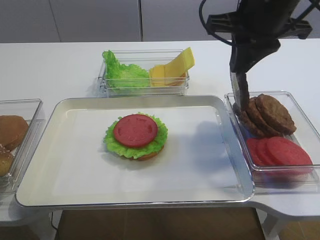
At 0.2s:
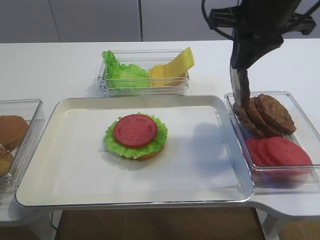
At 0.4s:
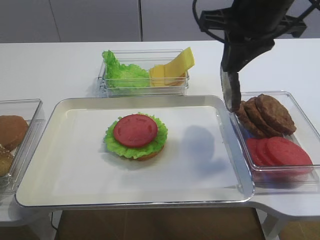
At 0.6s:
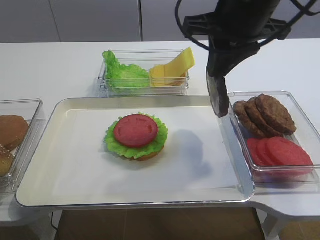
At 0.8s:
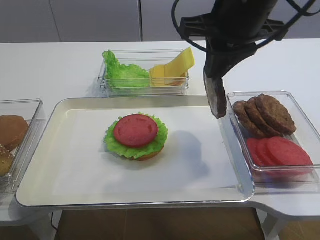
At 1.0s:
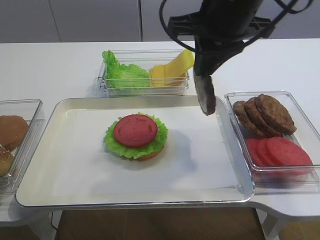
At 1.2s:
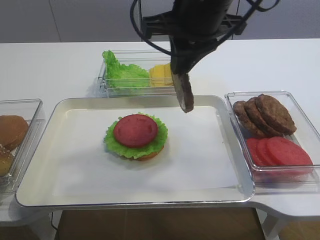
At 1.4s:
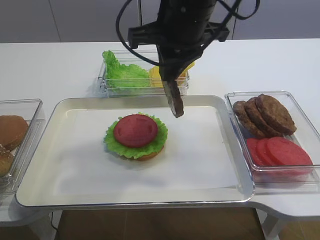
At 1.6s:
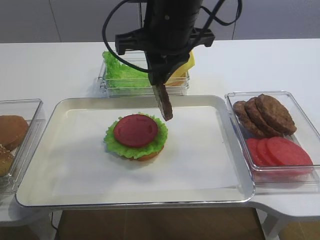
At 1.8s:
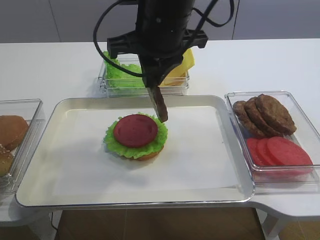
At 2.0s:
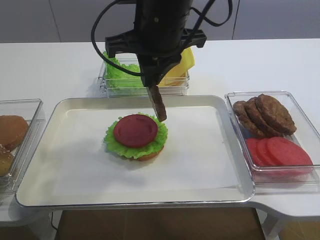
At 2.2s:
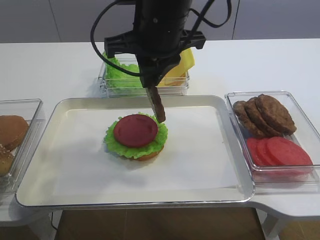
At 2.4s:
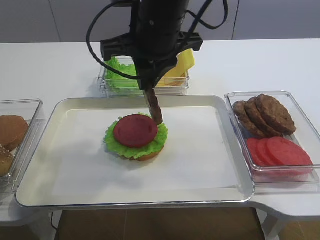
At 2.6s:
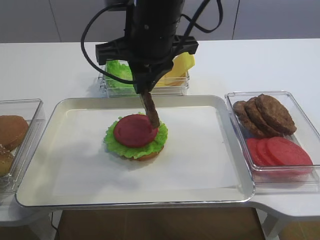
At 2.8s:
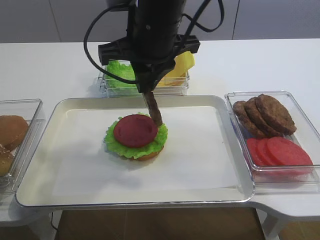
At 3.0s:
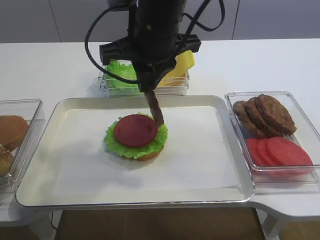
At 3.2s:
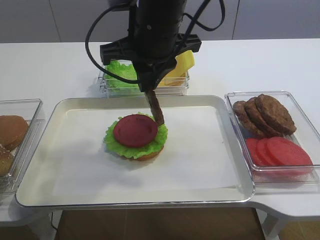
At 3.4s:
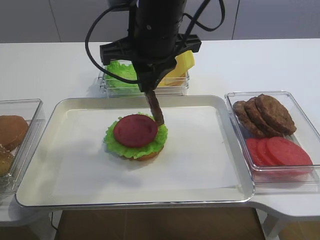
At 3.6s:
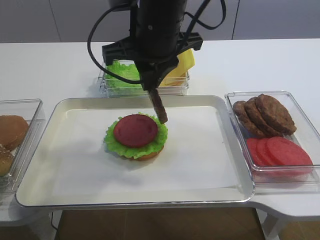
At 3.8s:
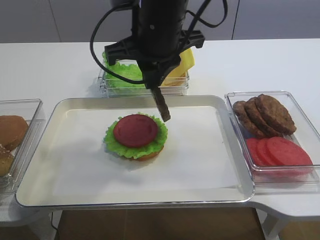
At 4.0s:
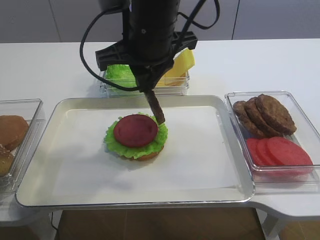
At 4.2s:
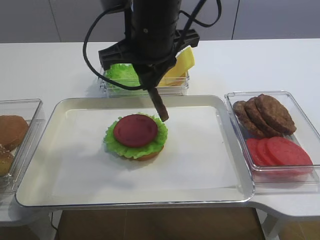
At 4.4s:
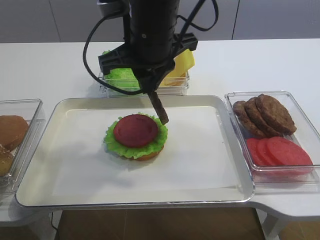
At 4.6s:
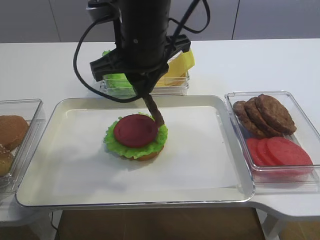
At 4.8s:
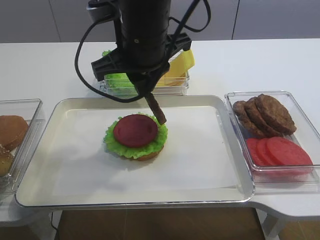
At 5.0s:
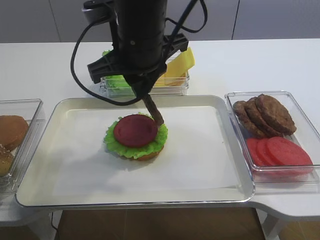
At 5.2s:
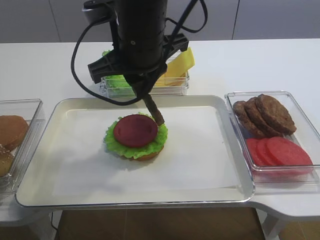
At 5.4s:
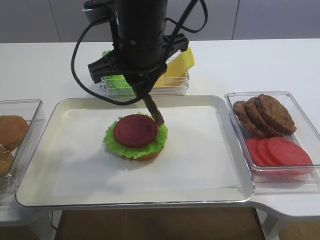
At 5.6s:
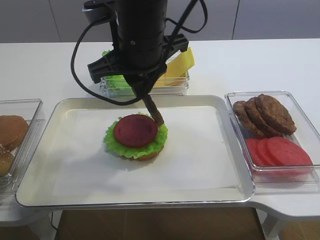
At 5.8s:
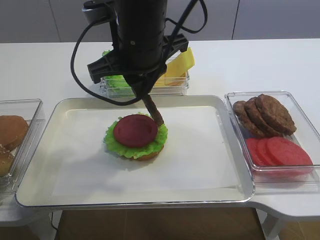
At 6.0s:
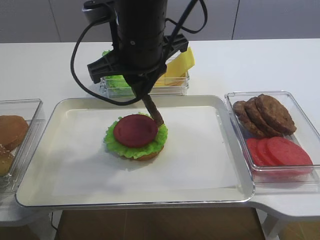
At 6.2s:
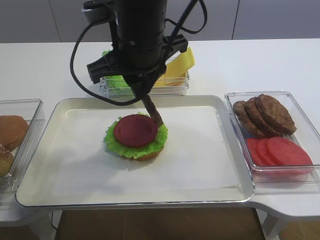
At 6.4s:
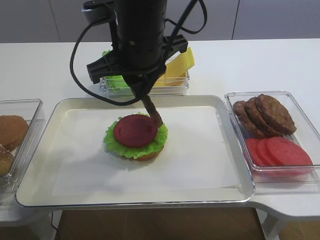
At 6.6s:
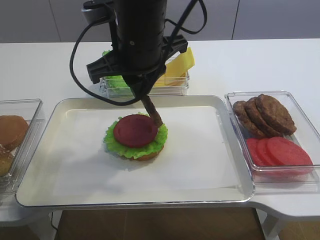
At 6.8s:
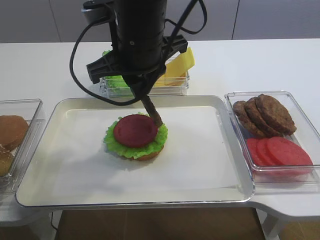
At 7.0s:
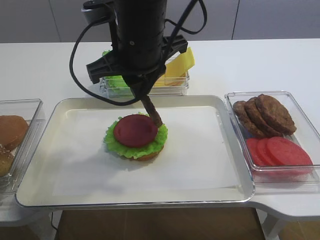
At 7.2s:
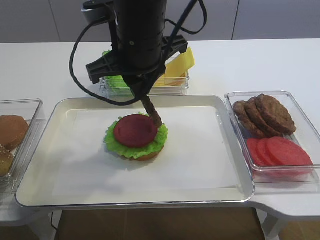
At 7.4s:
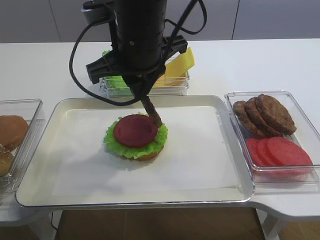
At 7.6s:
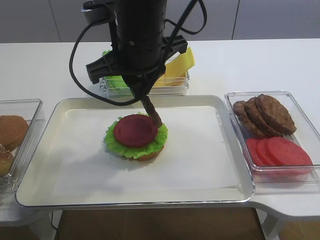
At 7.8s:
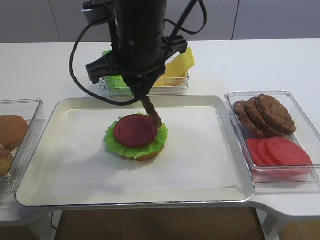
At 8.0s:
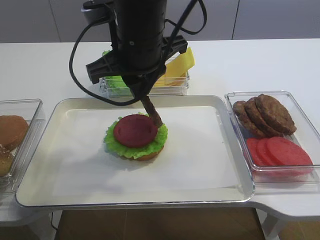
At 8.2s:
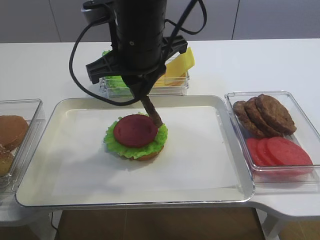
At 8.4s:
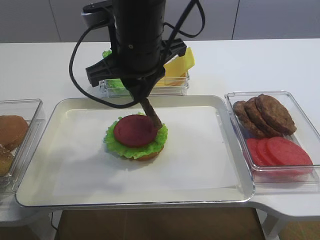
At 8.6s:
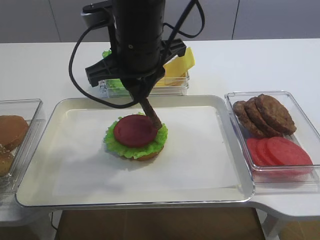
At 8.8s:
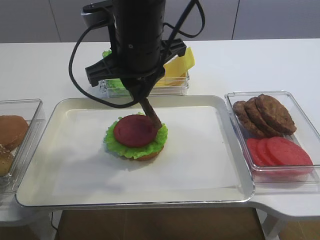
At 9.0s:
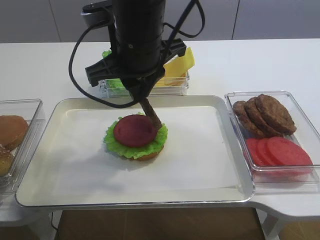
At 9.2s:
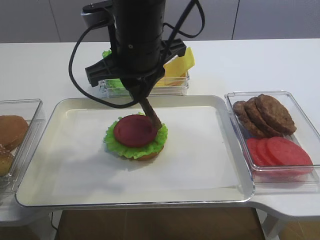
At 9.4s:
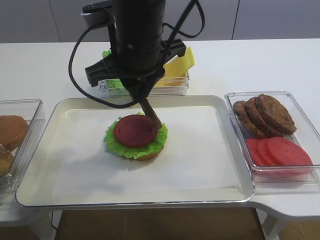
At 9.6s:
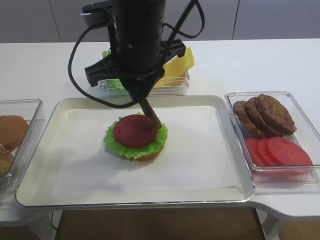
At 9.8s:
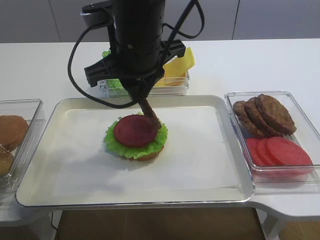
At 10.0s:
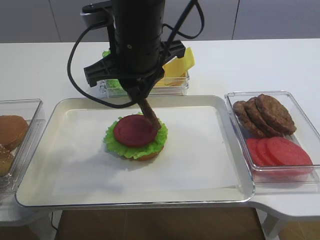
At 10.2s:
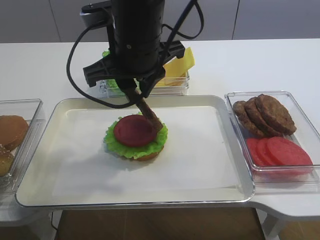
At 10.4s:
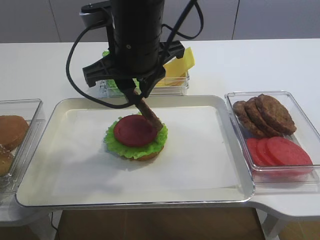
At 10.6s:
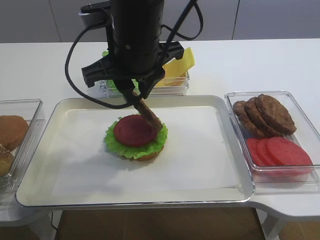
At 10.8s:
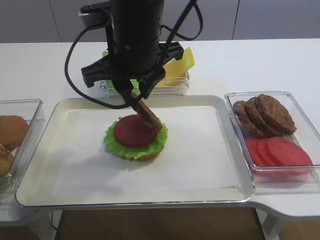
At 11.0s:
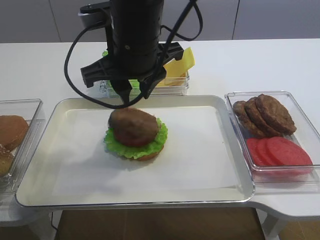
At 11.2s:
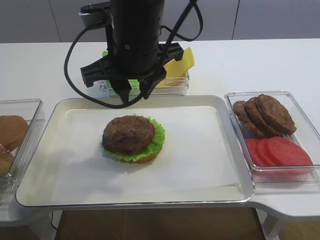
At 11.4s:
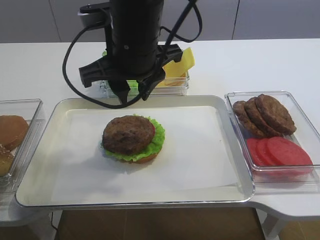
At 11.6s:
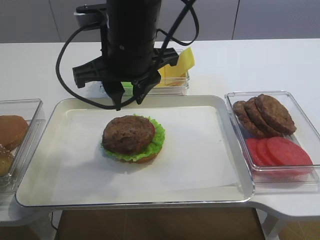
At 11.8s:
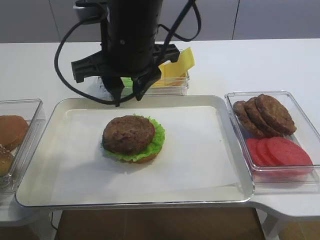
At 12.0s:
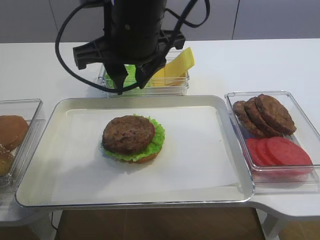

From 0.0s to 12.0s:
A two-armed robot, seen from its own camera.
Step, from 0.6s to 11.2s: Place the cutlet on the tomato slice with the right gripper.
From 0.0s to 1.6s: The right gripper moves to the left, approximately 10 cm.
From 1.6s to 6.0s: The grippers make only small movements.
From 6.0s to 10.4s: Neither gripper changes place.
From 10.4s to 12.0s: There are only small adjustments of the grippers.

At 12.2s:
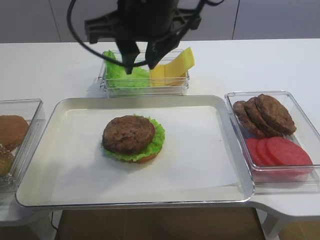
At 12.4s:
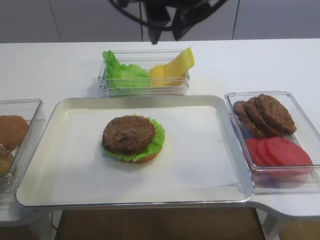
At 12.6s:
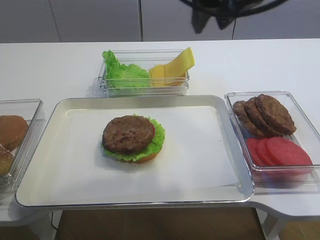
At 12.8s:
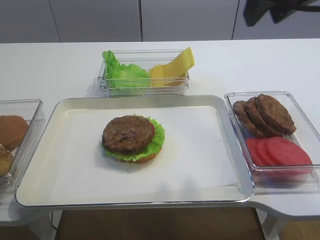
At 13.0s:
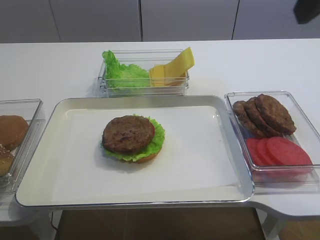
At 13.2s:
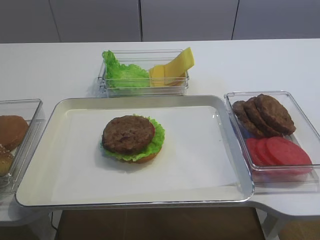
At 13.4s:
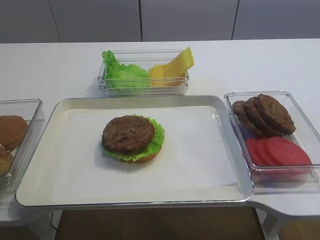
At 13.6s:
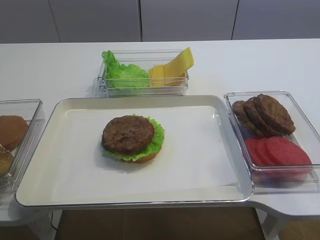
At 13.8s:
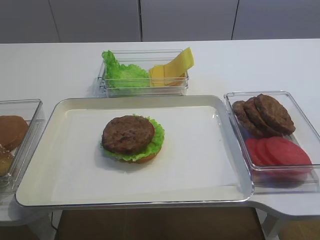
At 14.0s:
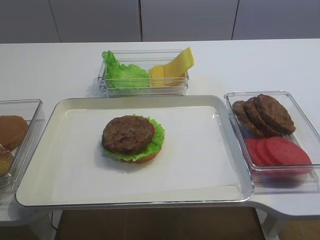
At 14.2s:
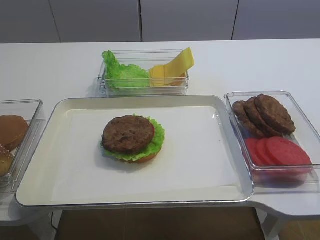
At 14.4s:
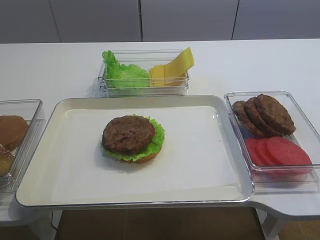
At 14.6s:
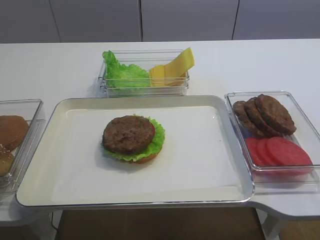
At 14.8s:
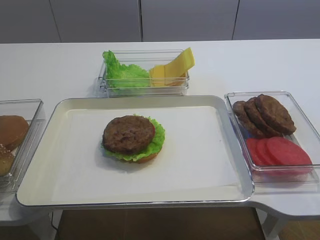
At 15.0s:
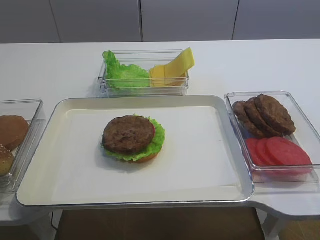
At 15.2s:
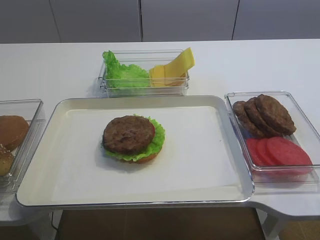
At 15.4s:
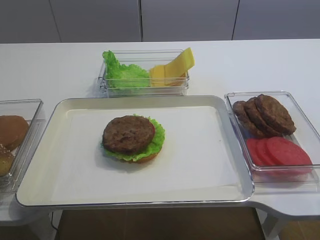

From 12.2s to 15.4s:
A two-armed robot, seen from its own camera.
From 12.2s to 13.8s: The right gripper goes approximately 35 cm to the right and backward.
From 13.8s to 15.4s: The right gripper is displaced downward and backward by roughly 10 cm.

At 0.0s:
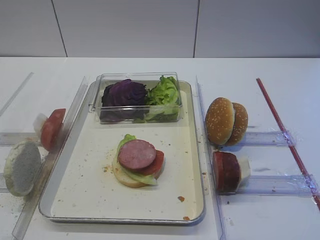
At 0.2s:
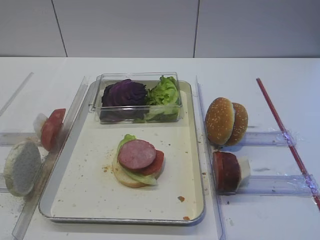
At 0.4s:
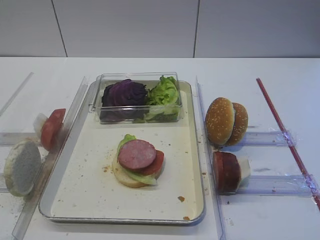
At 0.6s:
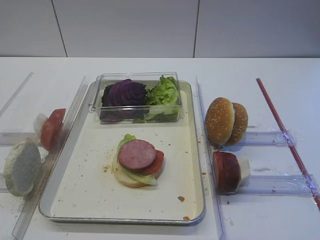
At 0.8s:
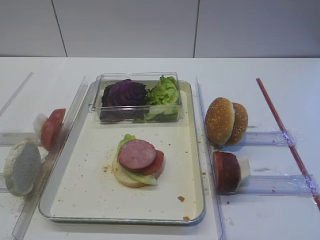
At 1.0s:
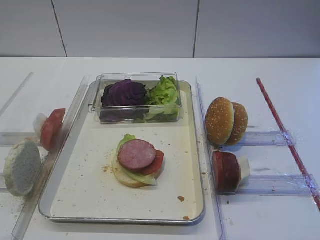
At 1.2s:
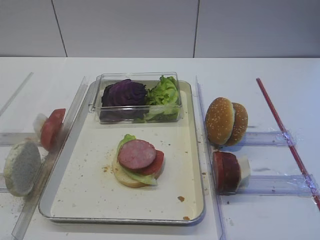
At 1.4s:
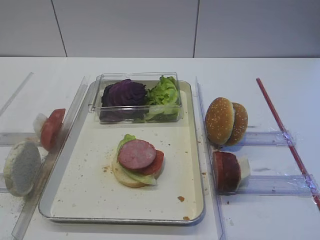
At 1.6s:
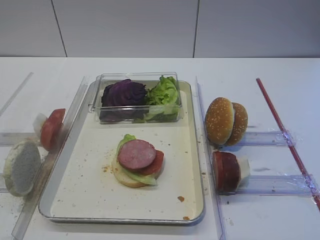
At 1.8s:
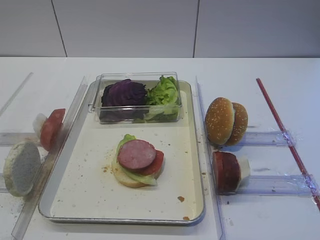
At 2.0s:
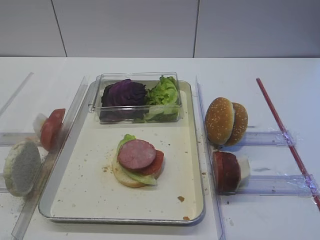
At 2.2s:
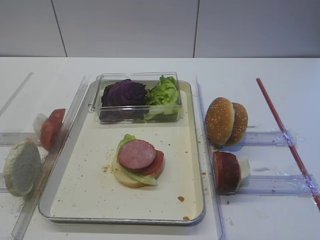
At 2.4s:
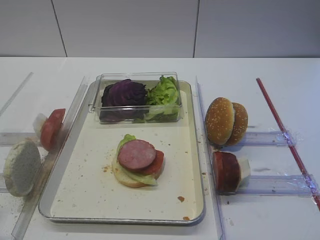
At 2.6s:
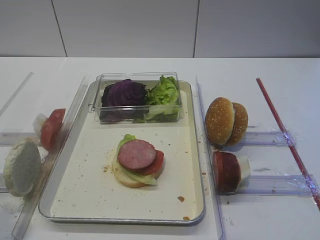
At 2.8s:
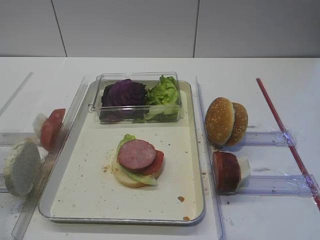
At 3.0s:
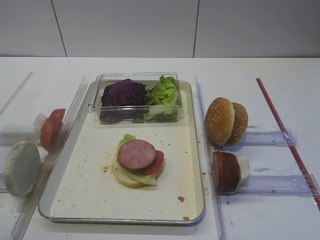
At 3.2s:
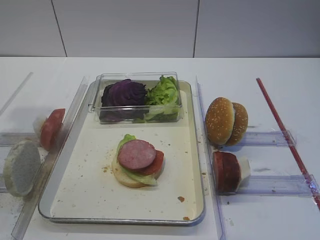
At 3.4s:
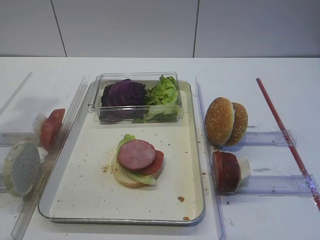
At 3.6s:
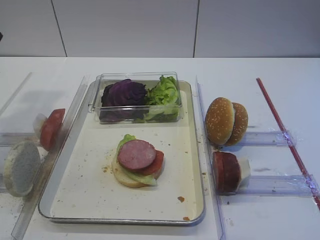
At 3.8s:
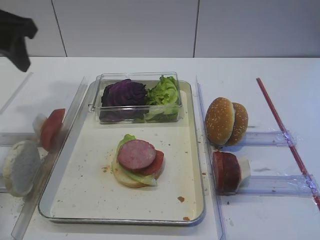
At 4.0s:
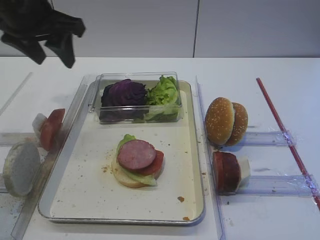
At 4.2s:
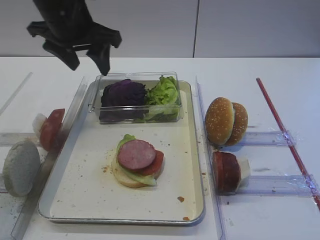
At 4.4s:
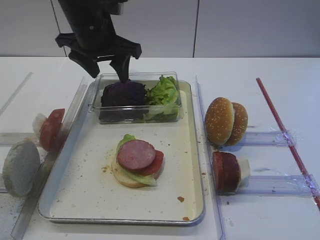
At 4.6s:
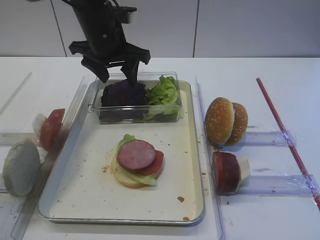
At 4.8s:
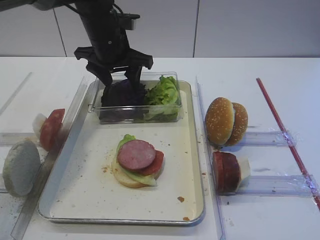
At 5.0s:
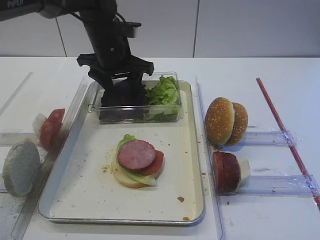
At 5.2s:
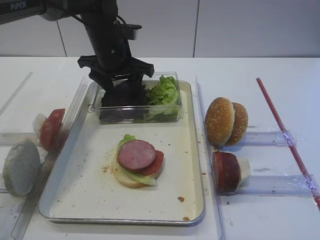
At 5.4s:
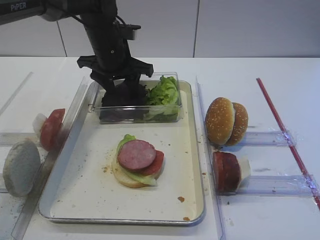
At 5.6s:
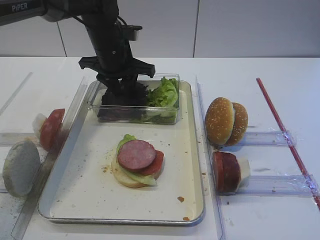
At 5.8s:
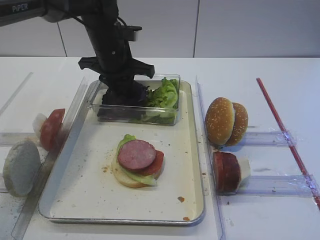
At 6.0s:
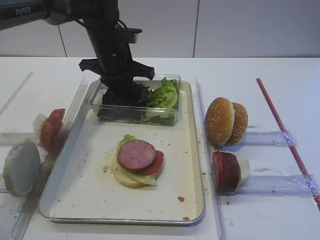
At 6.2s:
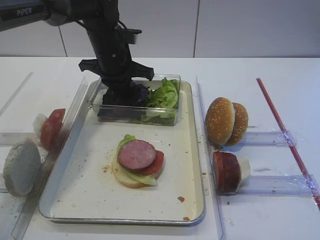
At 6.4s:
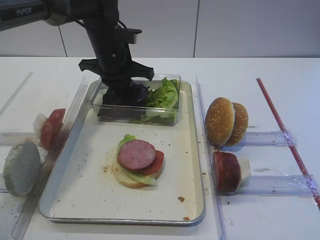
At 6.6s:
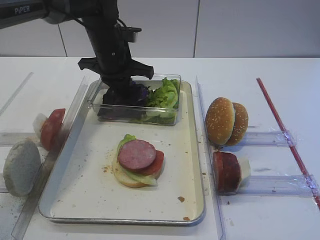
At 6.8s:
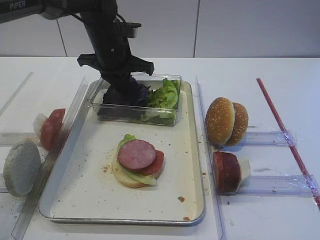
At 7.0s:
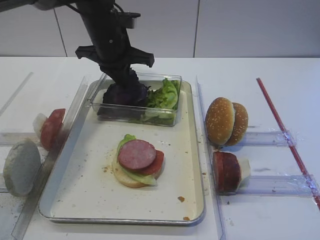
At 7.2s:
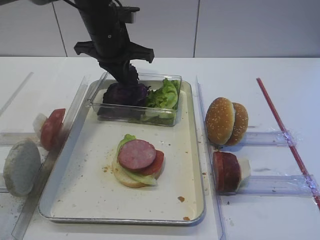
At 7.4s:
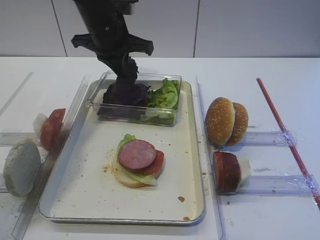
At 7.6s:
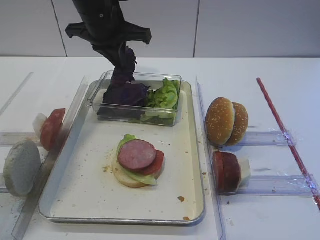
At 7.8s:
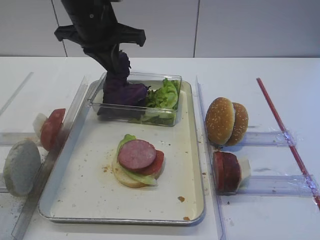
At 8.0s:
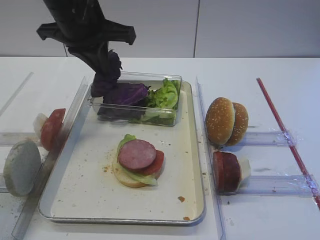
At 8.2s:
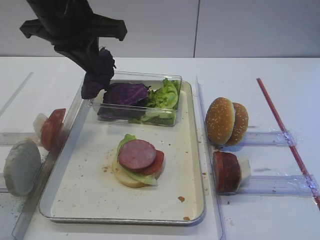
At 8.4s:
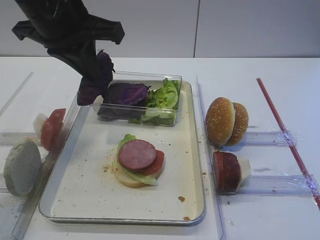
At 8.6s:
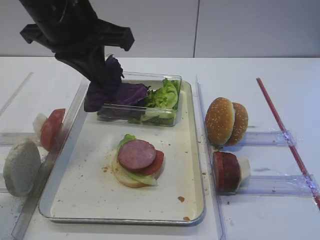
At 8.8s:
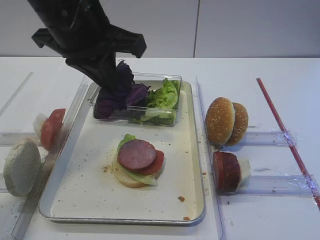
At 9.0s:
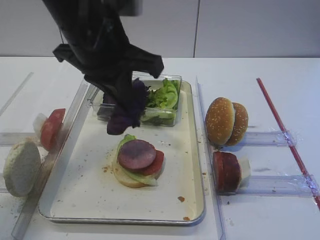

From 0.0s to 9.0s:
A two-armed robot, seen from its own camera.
Step, from 0.0s to 7.4s: Pick up the purple cabbage with the left gripper.
From 1.6s to 3.0s: The left gripper moves forward and upward, about 20 cm.
From 3.0s to 4.4s: The left gripper goes approximately 30 cm forward and to the right.
From 4.4s to 6.0s: The left gripper heads downward, covering roughly 5 cm, and closes up.
From 6.0s to 7.6s: The left gripper shifts approximately 10 cm upward.
From 7.6s to 9.0s: The left gripper is displaced backward by about 15 cm.
